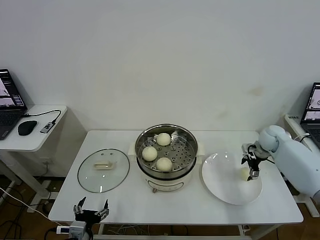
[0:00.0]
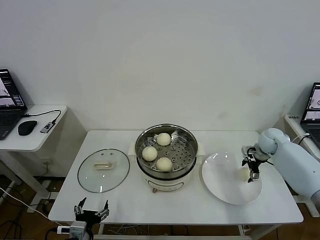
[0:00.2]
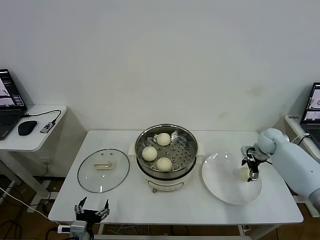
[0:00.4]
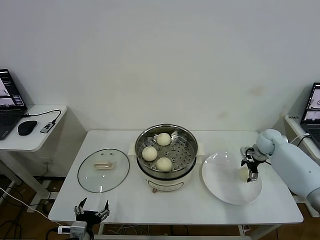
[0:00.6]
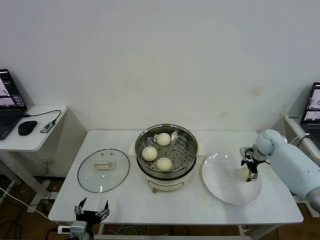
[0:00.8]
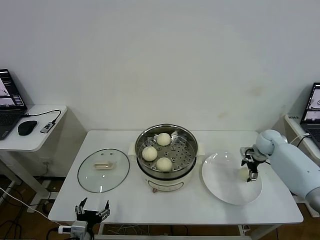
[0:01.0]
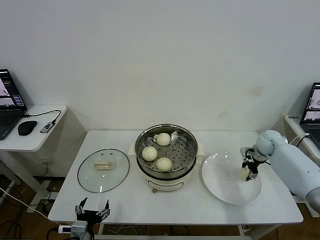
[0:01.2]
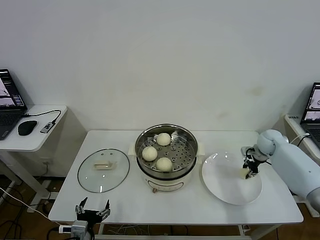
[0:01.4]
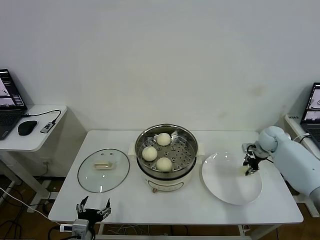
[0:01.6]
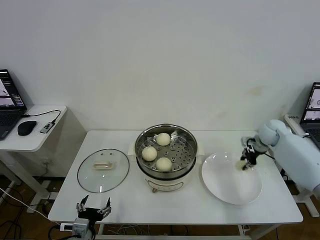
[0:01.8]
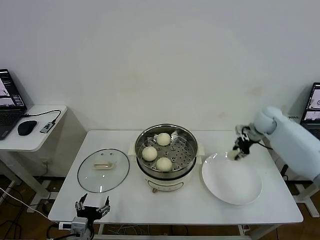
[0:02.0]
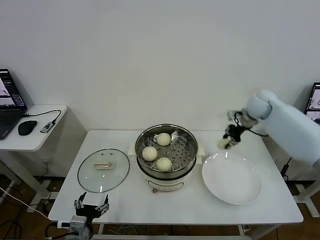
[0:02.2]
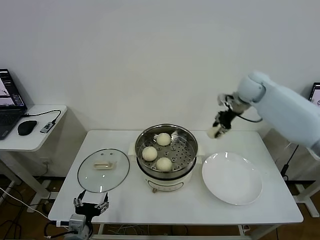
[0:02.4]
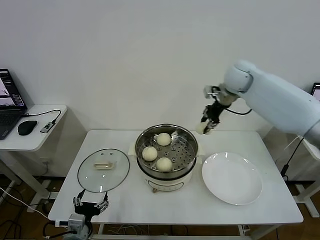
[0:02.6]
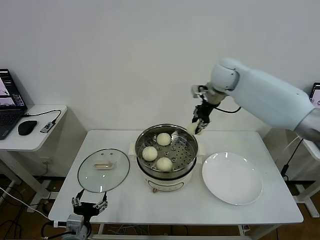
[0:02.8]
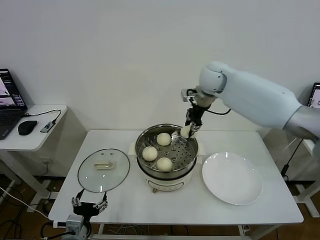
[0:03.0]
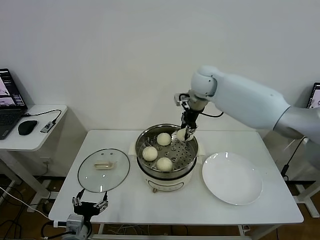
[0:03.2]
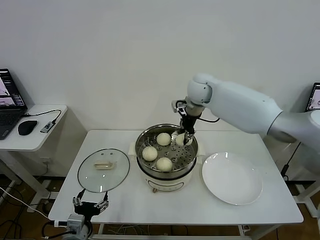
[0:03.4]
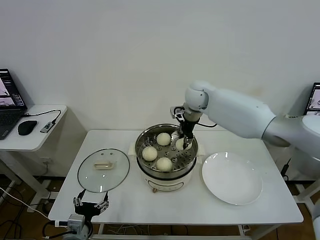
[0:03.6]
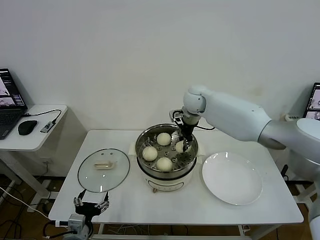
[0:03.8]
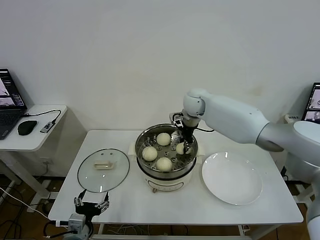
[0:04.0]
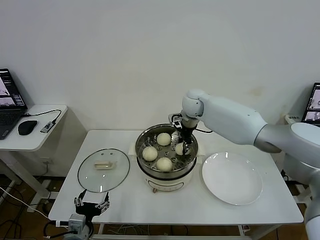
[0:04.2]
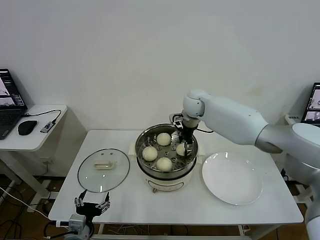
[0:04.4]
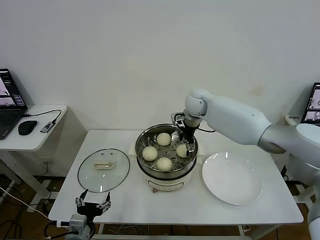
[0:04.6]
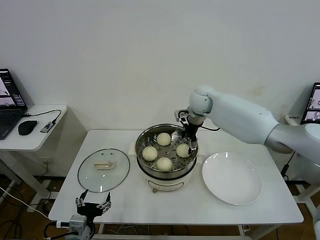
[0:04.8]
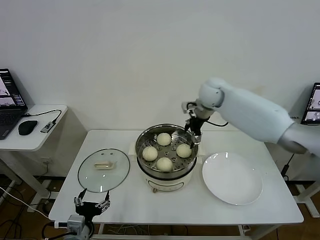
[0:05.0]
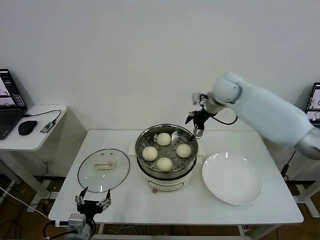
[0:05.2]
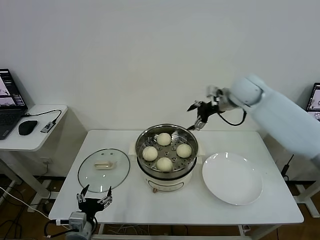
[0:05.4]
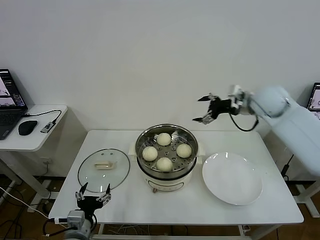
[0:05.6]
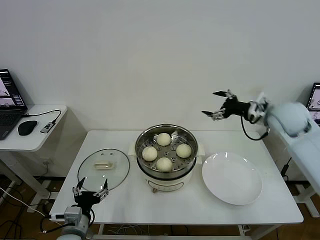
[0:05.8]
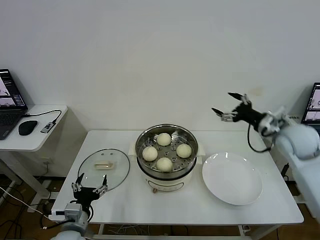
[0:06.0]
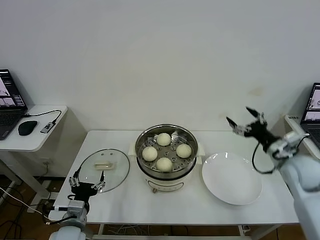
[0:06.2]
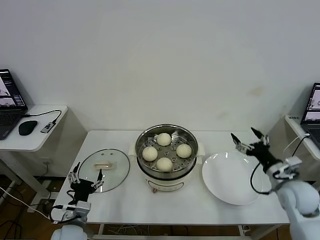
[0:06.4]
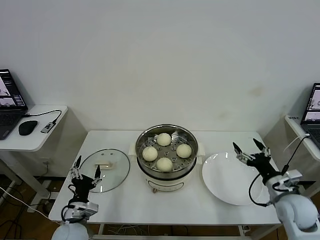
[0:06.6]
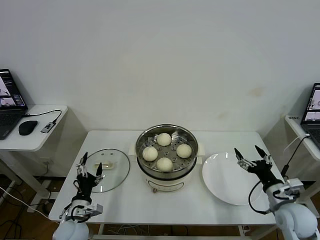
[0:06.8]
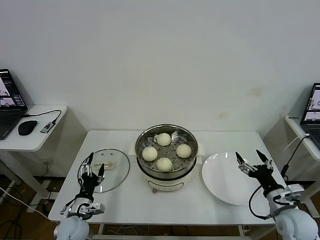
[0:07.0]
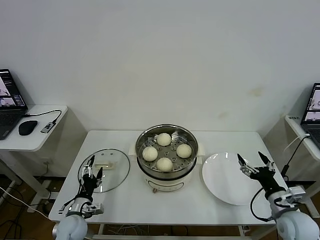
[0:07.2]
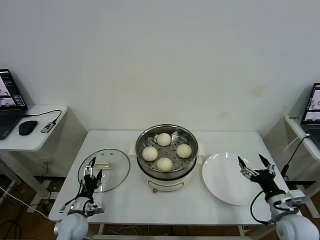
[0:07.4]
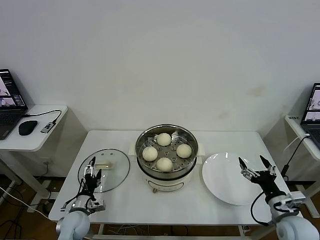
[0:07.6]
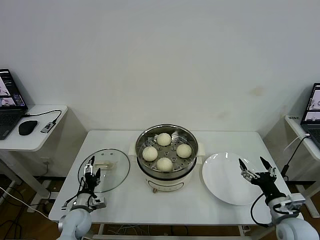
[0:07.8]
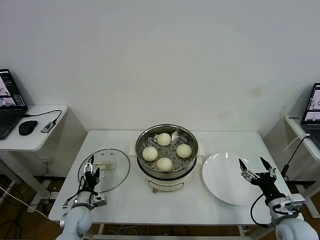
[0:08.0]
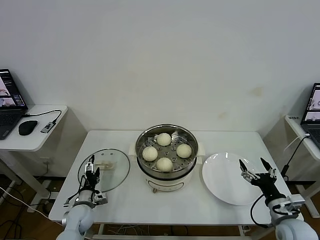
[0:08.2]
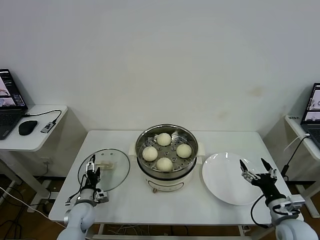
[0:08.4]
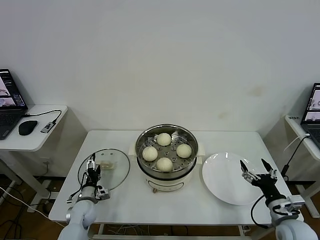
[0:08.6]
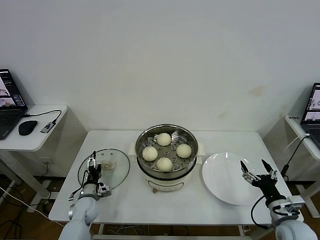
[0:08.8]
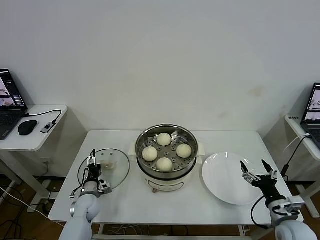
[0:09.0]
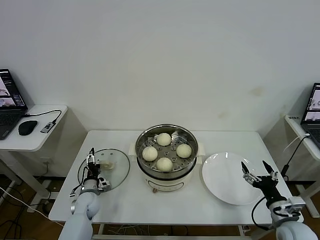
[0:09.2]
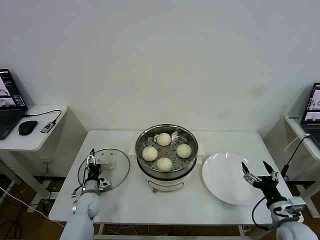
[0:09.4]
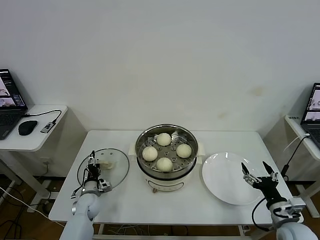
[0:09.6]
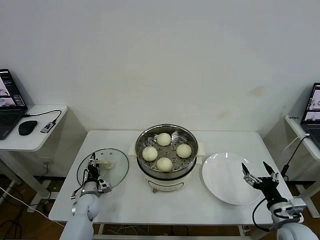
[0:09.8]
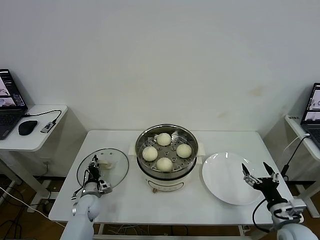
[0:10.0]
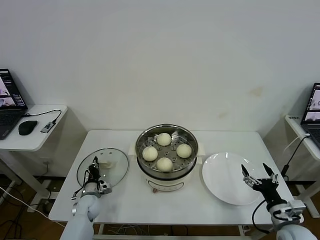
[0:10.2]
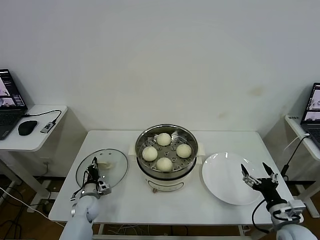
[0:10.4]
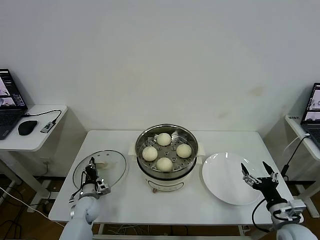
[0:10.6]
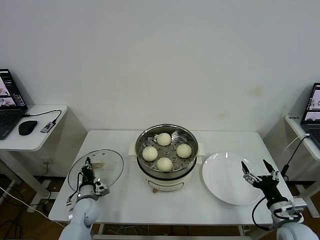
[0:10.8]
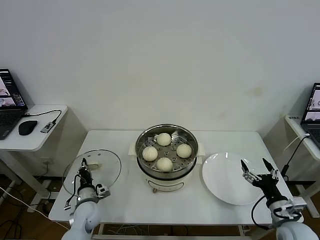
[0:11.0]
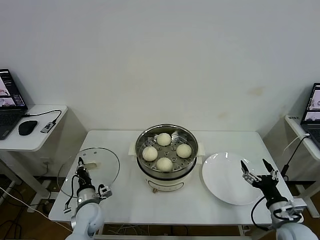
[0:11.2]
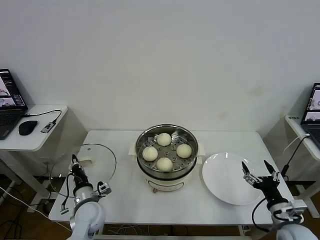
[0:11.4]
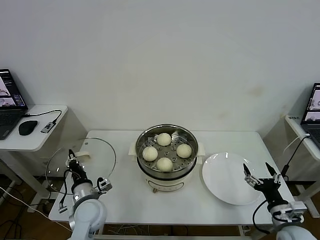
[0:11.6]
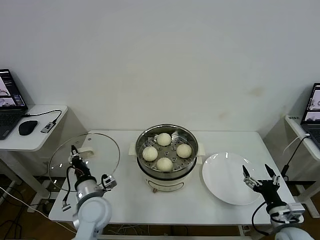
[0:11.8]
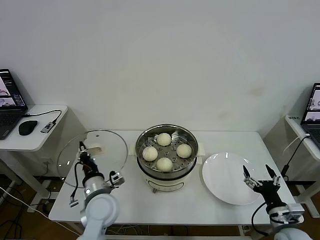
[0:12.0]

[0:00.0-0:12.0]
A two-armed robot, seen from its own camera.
Task of the whole recording: take steamed baozi put them in steamer then cover it.
Step, 0:01.6 to 0:04.6: Place the baozi on the steamer with right gripper.
Step, 0:04.8 to 0:10.6: Grasp the pot lid with left gripper.
0:00.0 to 0:01.6: The right gripper closes.
0:01.6 to 0:03.0: The right gripper travels to the left and upward by approximately 35 cm.
0:03.0 to 0:04.4: The right gripper shifts some 10 cm downward, and opens its fingers.
0:04.4 to 0:06.0: The right gripper travels to the right and backward by roughly 35 cm.
0:06.0 to 0:07.6: The left gripper is displaced downward and forward by about 15 cm. The right gripper heads backward and downward, covering roughly 25 cm.
0:07.6 to 0:09.0: The left gripper shifts roughly 5 cm forward.
0:09.0 to 0:10.4: The left gripper closes up.
0:10.4 to 0:12.0: The left gripper heads upward, to the right and backward, covering roughly 25 cm.

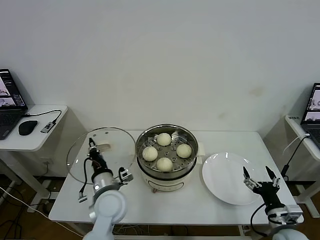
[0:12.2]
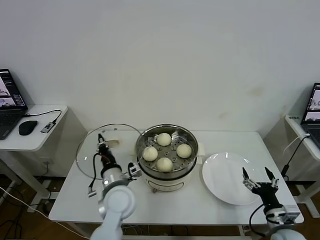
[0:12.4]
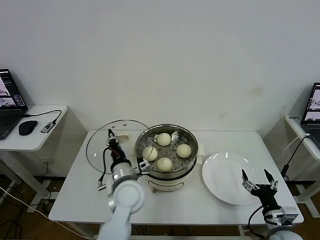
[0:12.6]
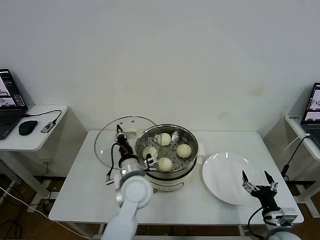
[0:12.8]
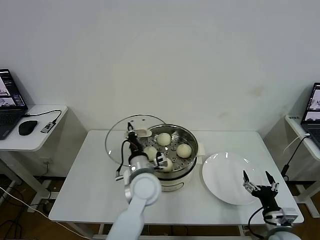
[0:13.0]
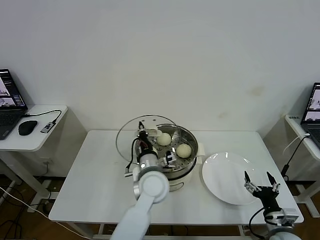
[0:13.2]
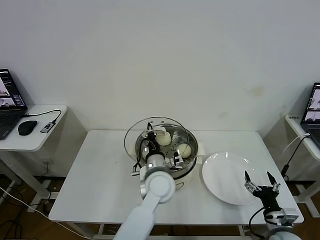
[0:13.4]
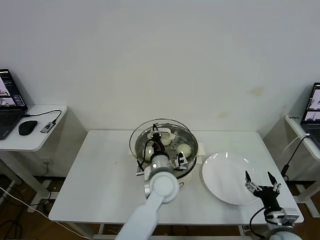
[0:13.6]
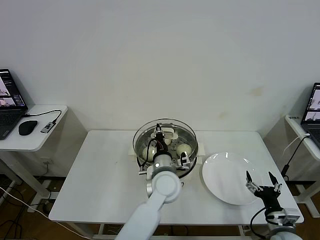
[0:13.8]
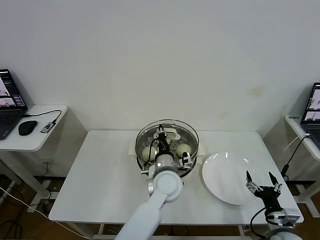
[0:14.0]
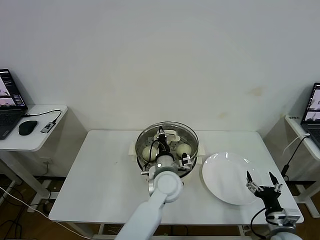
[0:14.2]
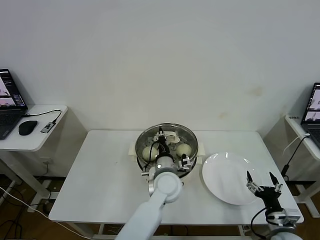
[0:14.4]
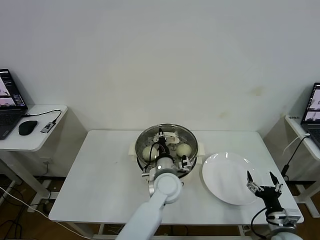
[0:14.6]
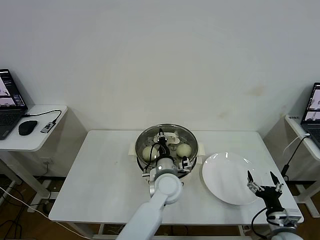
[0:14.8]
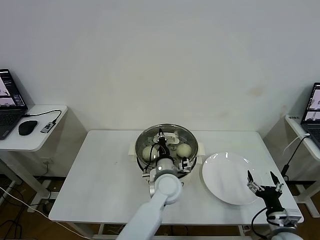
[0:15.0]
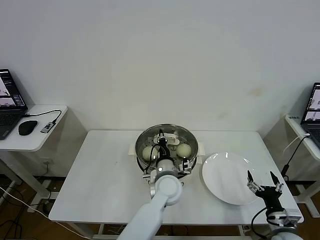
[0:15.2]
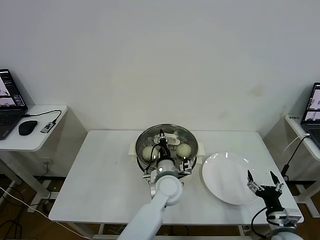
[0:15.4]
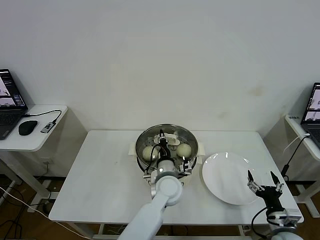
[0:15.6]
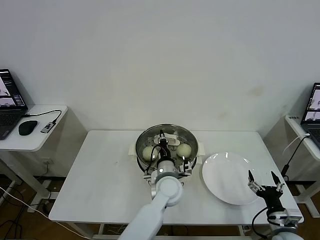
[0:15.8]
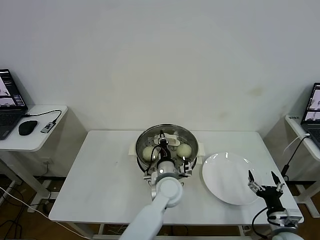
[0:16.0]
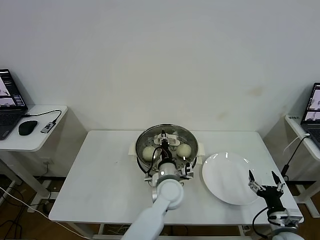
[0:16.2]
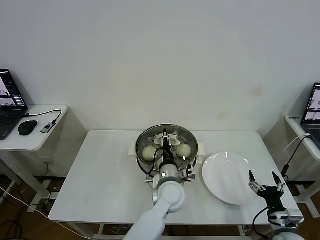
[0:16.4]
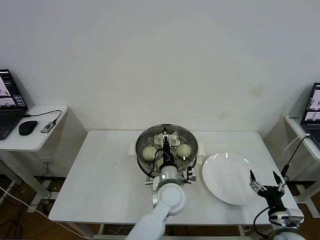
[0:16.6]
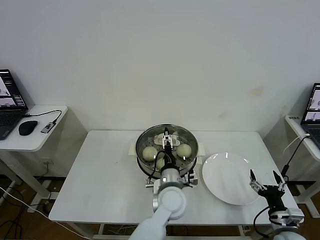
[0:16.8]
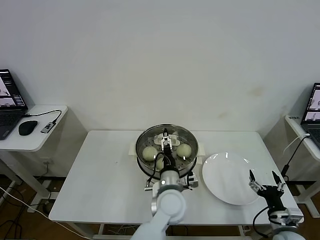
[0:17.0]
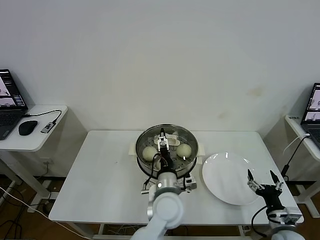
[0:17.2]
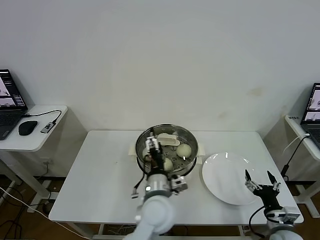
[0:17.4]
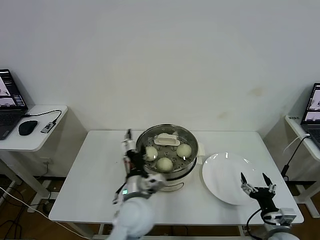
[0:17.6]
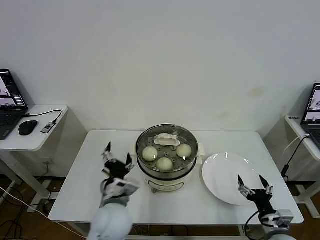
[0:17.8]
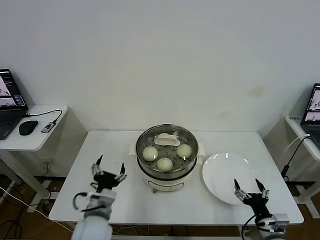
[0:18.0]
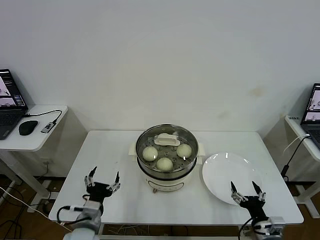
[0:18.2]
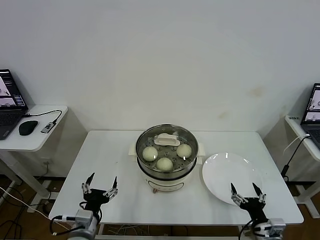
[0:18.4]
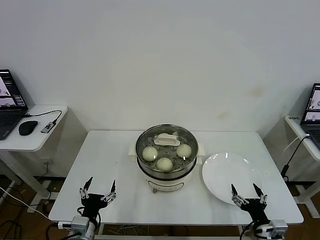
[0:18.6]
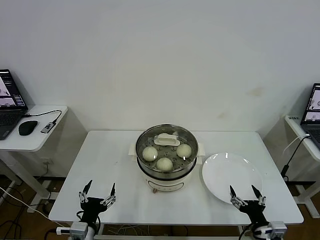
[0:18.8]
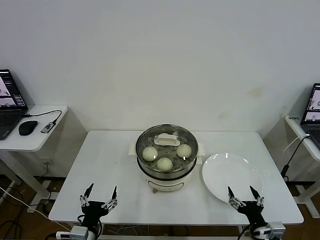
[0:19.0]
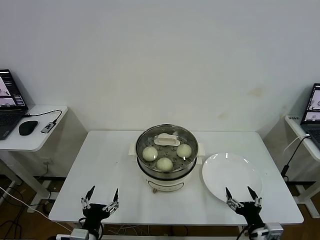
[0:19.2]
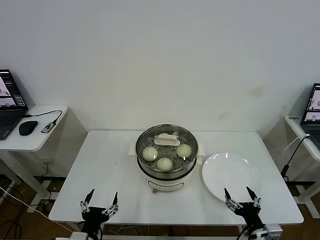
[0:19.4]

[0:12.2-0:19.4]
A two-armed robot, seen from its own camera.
Task of the whole recording: take steamed baozi put them in steamer then cover it.
Step, 0:12.2 to 0:17.0: Place the pot lid on the steamer with left gripper.
0:12.2 to 0:13.6: The left gripper travels to the right by roughly 15 cm.
0:13.6 to 0:15.0: The grippers stay close to where they were, moving slightly.
0:15.0 to 0:16.6: The left gripper opens up.
0:16.6 to 0:18.0: The left gripper heads to the left and backward, covering some 20 cm, and opens its fingers.
0:18.0 to 0:19.4: The left gripper is displaced backward, to the left and downward by some 15 cm. The right gripper ends up approximately 5 cm from where it was.

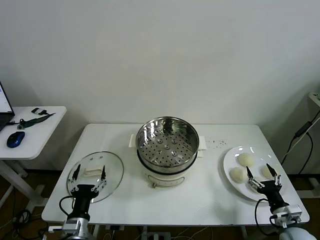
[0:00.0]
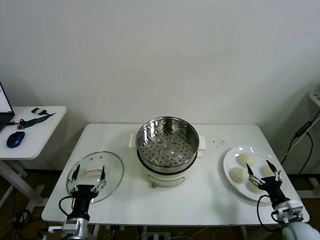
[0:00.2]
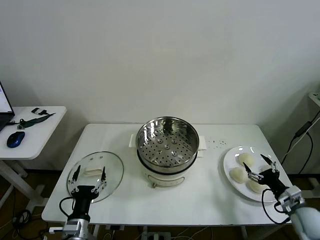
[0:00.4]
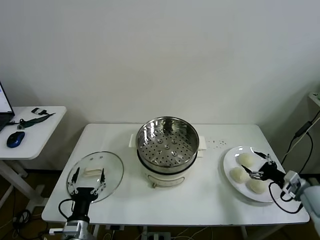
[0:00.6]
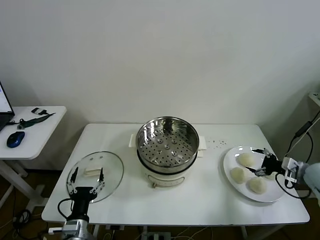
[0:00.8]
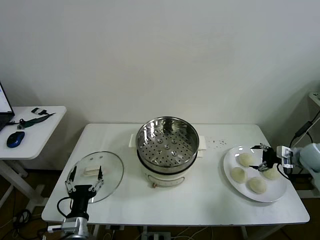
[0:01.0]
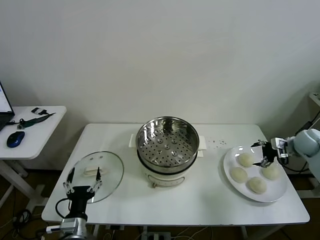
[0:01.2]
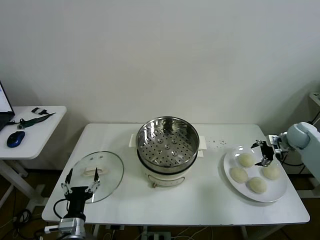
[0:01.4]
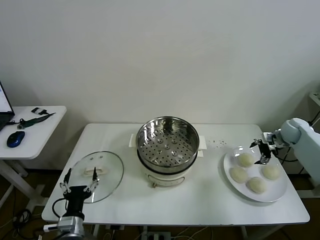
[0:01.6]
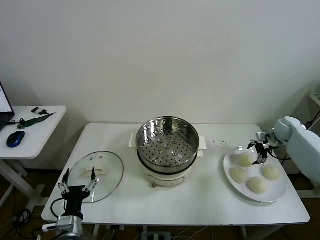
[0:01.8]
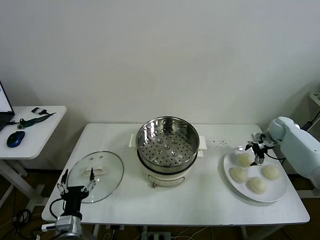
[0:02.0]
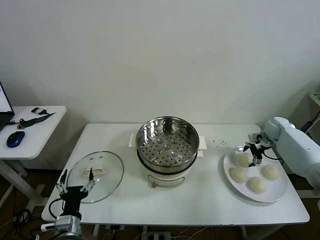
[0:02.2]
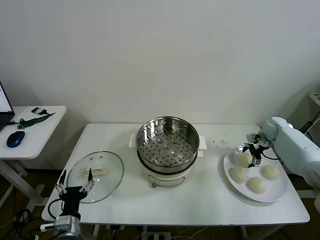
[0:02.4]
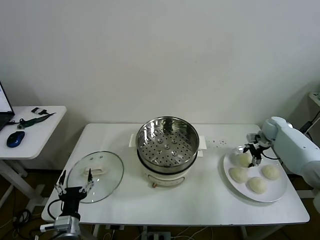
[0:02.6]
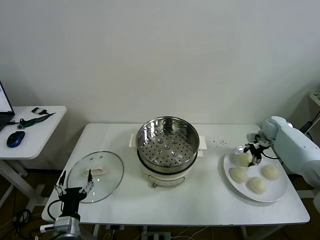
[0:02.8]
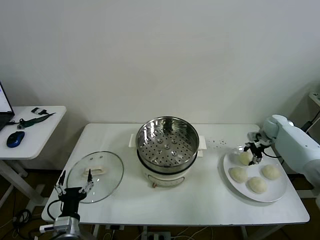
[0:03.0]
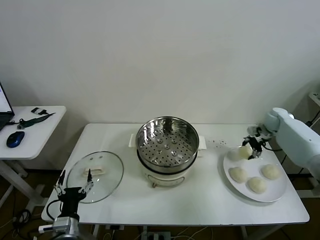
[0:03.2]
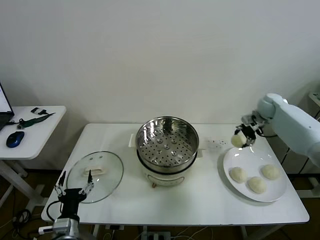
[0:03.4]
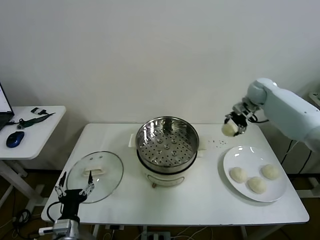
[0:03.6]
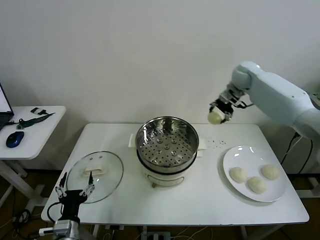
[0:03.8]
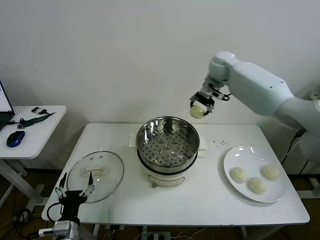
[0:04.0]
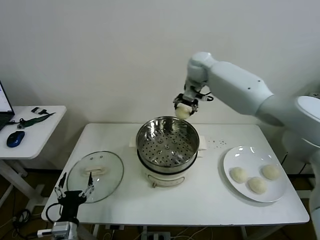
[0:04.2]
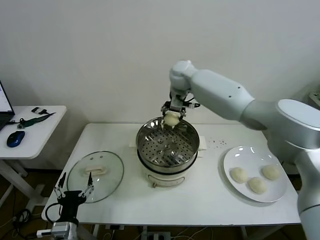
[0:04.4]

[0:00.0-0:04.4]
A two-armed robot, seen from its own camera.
Task of the whole recording: take steamed baozi put them in steamer then cover it.
Step, 0:00.0 to 0:02.4: Grasp the baozi in the plate with right gripper.
0:01.4 to 0:03.0: The right gripper moves forward, approximately 5 cm.
0:03.0 to 0:04.4: The right gripper travels to the left by about 40 cm.
